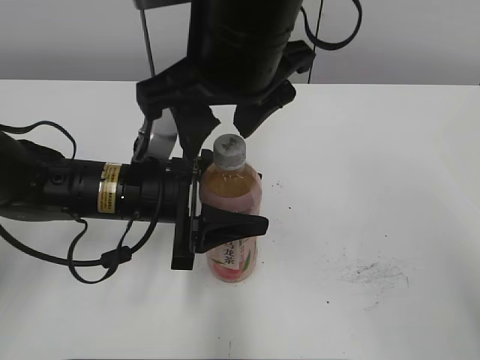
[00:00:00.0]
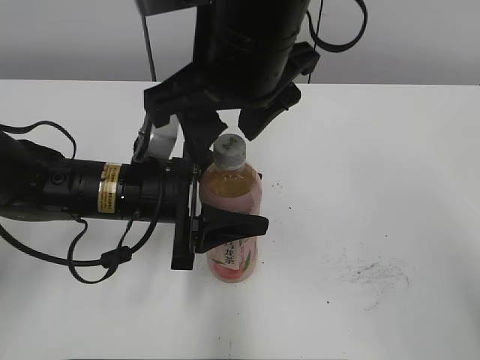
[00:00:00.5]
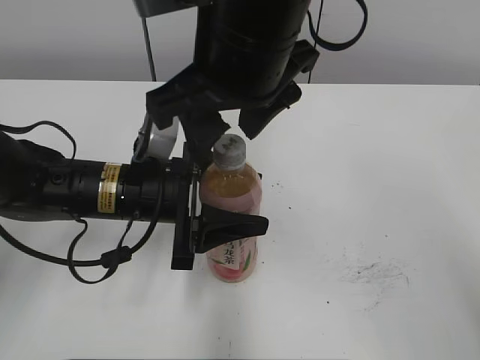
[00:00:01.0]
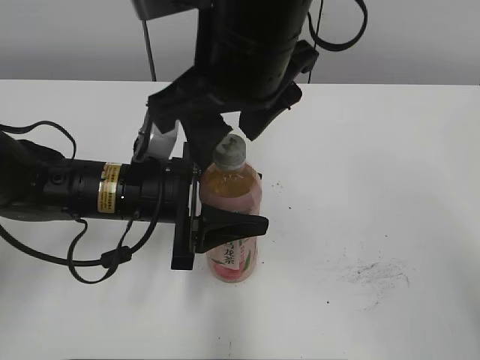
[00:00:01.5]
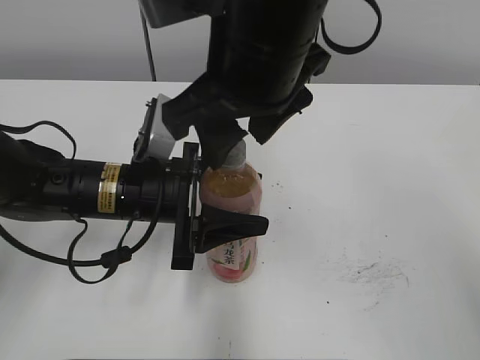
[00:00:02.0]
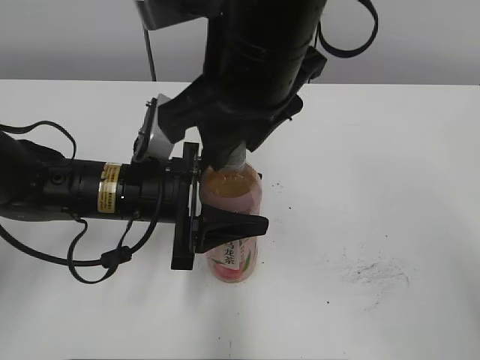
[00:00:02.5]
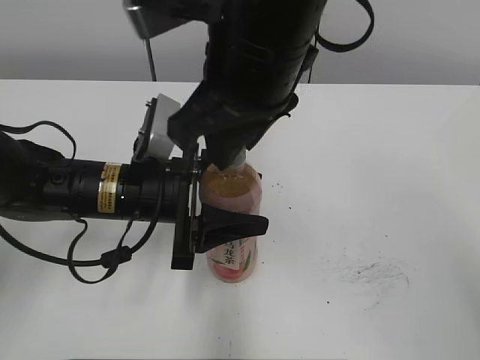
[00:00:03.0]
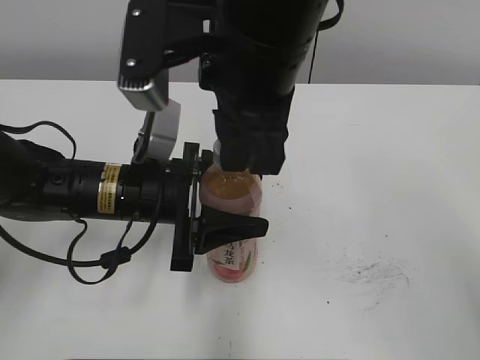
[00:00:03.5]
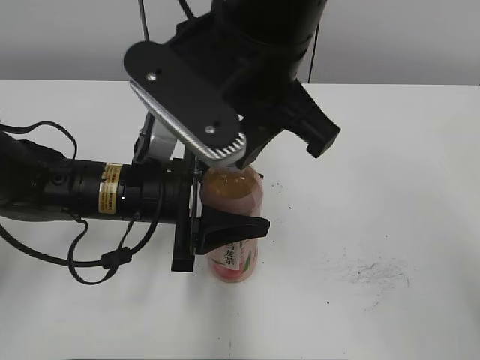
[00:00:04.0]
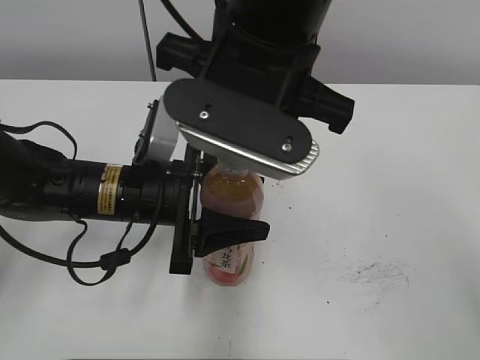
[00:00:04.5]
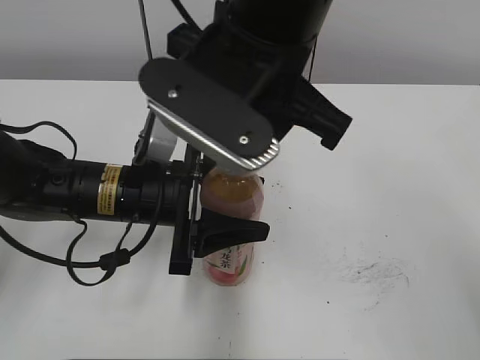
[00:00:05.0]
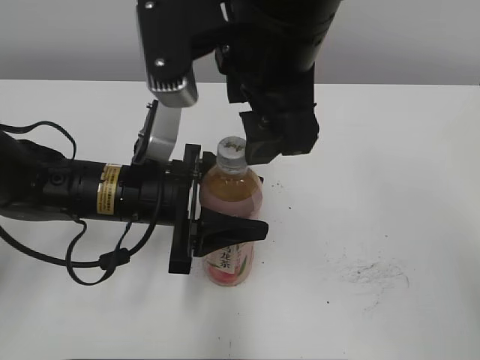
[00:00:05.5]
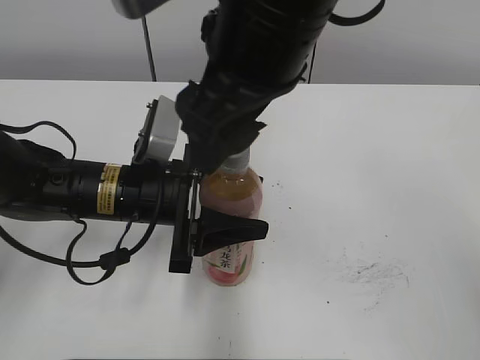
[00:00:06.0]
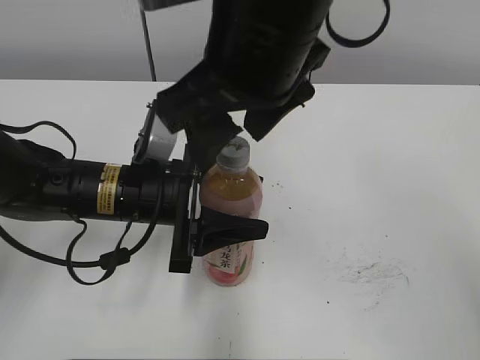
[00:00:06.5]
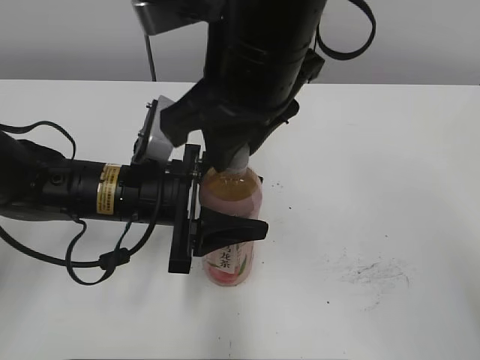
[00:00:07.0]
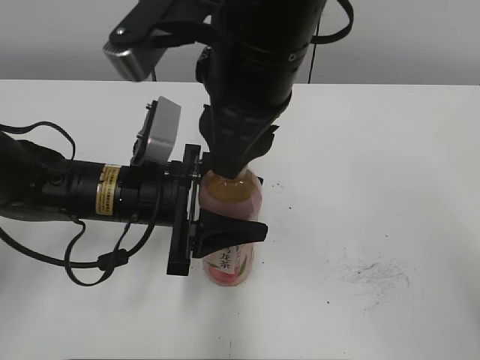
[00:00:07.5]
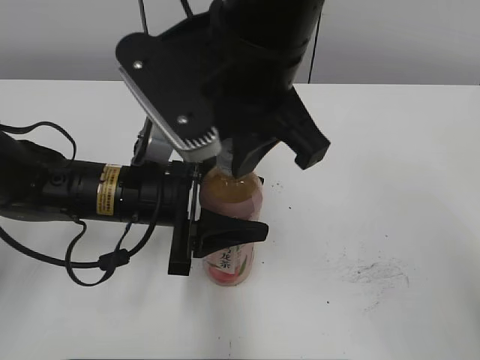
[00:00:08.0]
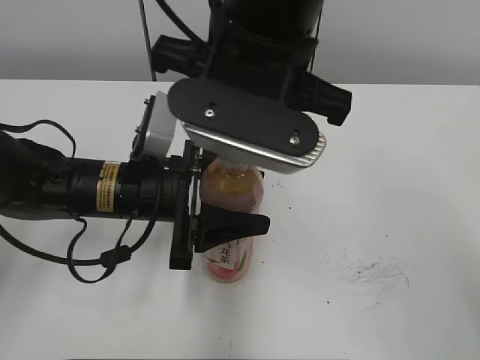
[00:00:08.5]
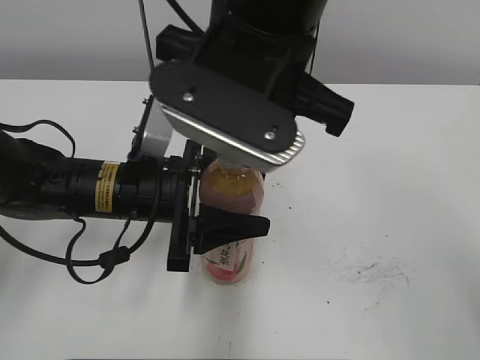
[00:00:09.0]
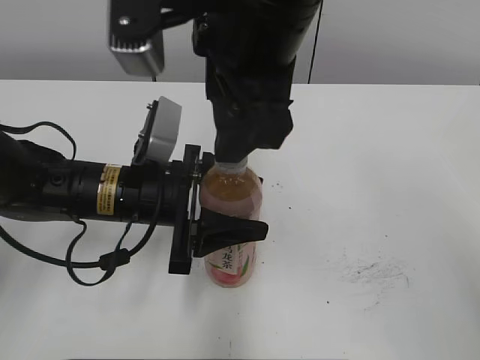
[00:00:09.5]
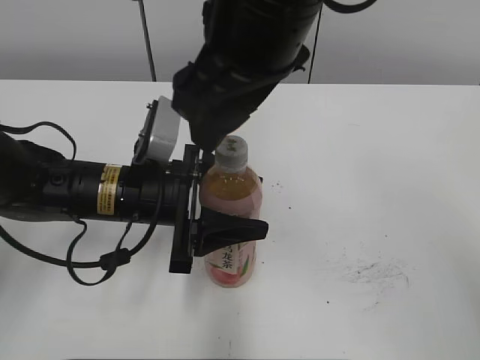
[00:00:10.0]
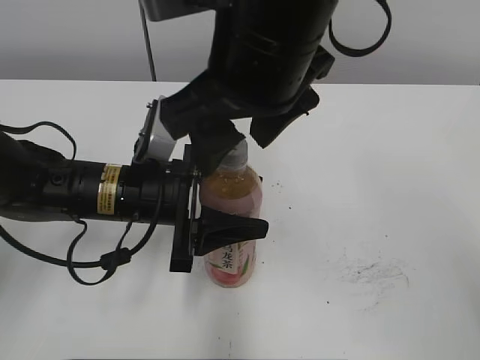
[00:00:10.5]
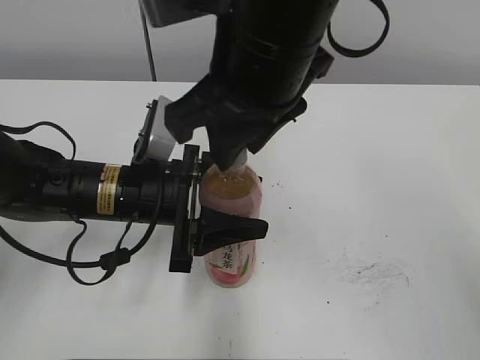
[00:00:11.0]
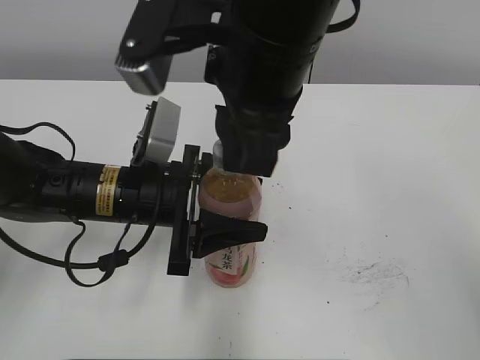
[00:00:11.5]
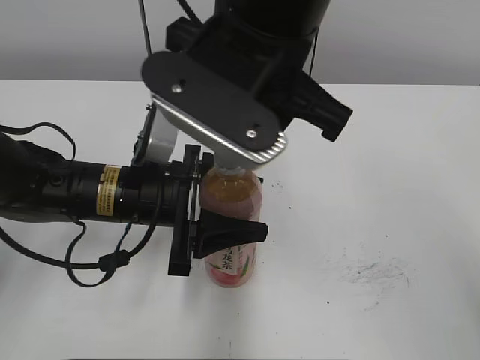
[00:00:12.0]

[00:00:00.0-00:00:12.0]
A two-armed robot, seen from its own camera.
00:00:00.0 to 00:00:02.0: There are only small adjustments of the grippers.
00:00:02.0 to 00:00:04.0: The right gripper closes up.
00:00:04.0 to 00:00:06.0: The right gripper opens.
00:00:06.0 to 00:00:08.0: The right gripper closes up.
00:00:08.0 to 00:00:10.0: The right gripper opens up.
00:00:10.0 to 00:00:12.0: The right gripper closes its fingers.

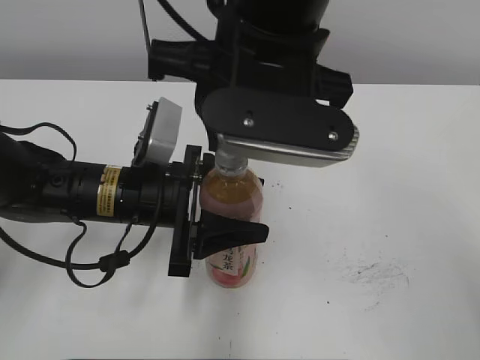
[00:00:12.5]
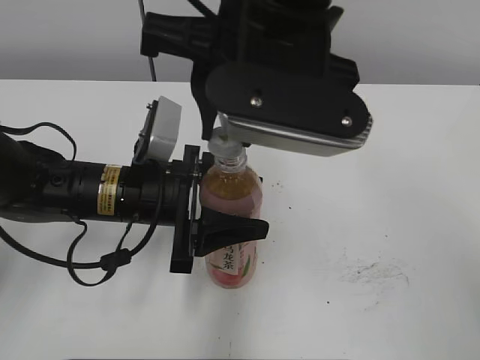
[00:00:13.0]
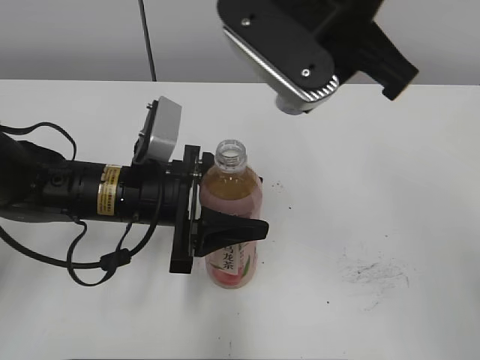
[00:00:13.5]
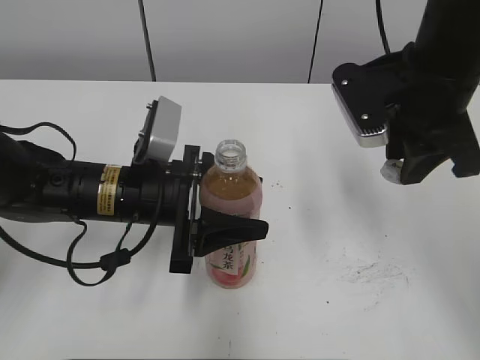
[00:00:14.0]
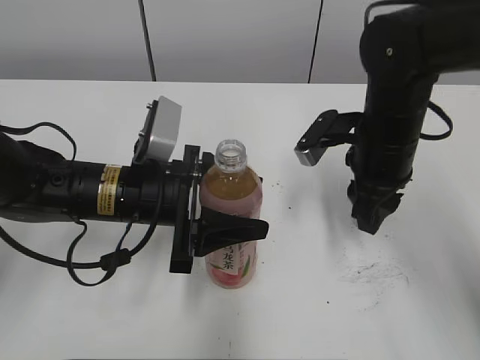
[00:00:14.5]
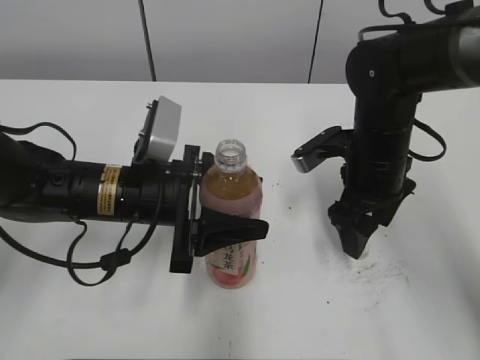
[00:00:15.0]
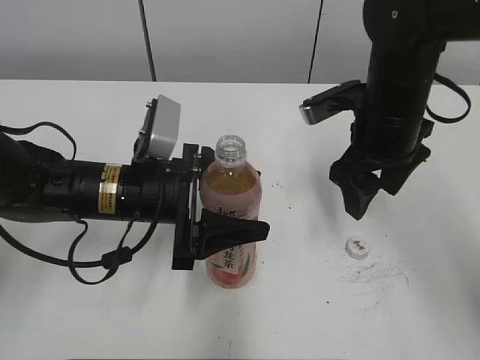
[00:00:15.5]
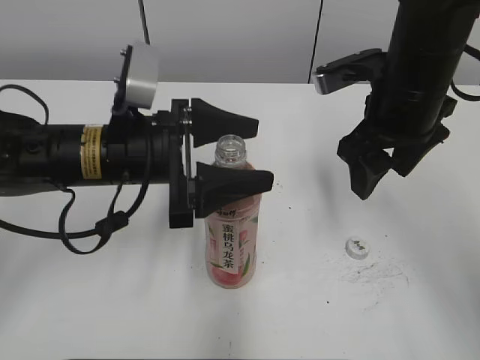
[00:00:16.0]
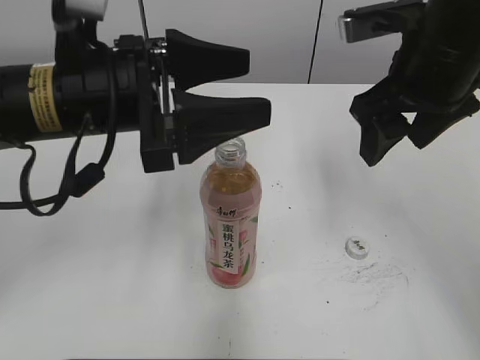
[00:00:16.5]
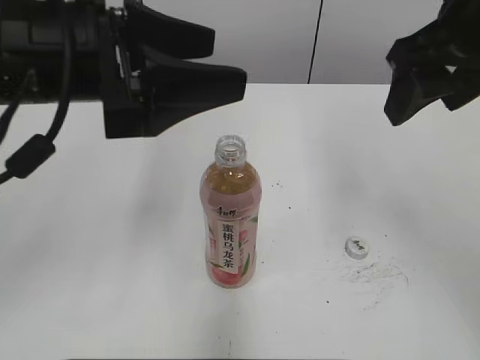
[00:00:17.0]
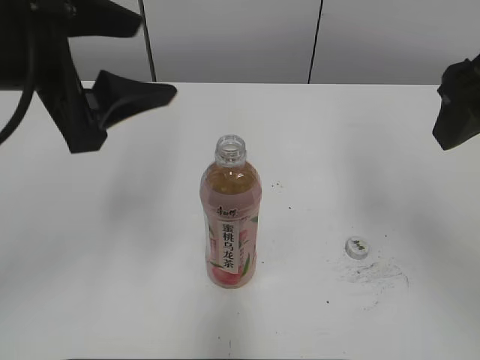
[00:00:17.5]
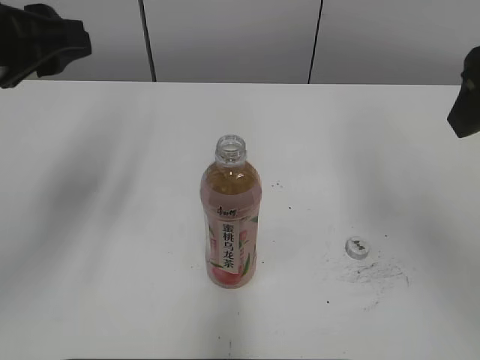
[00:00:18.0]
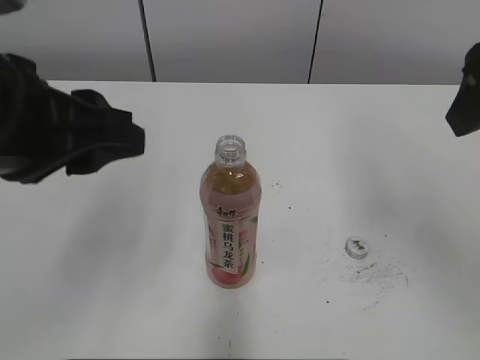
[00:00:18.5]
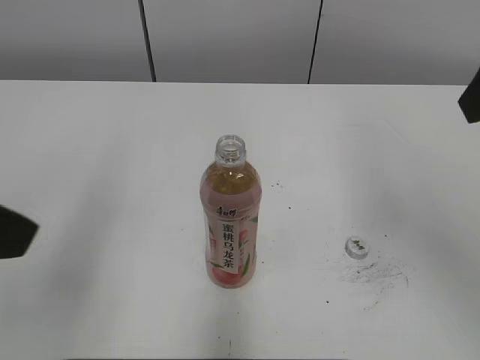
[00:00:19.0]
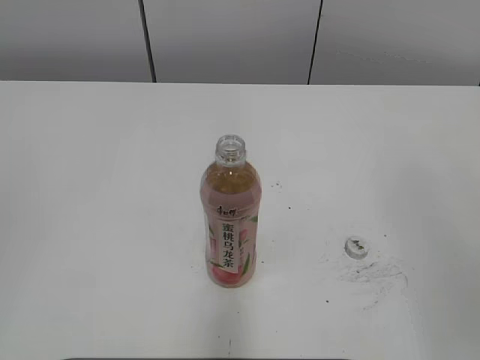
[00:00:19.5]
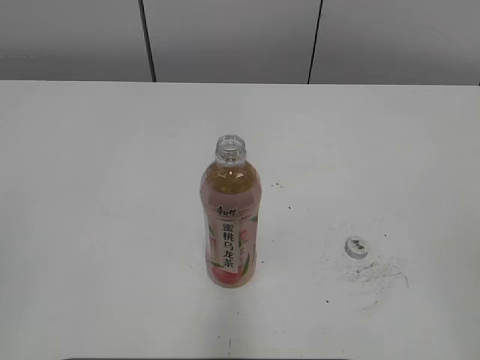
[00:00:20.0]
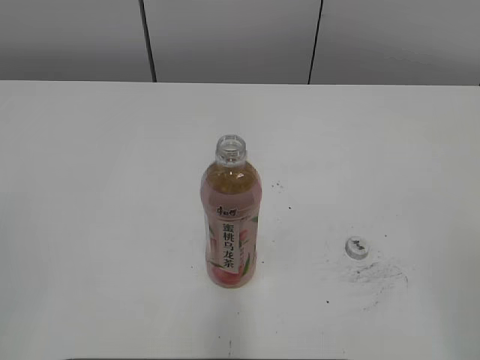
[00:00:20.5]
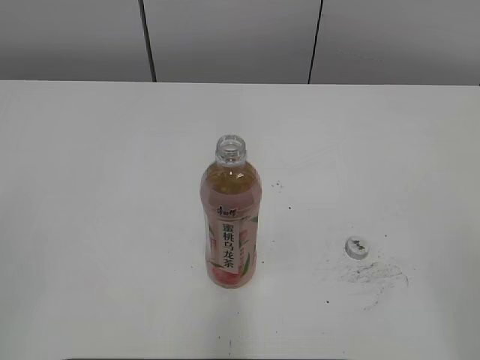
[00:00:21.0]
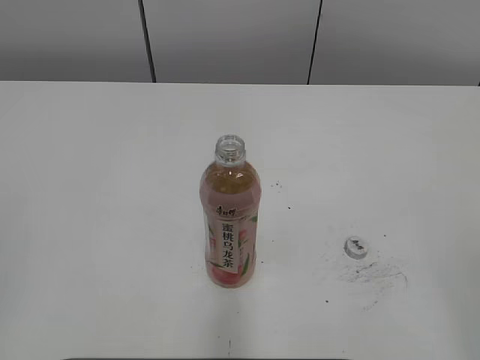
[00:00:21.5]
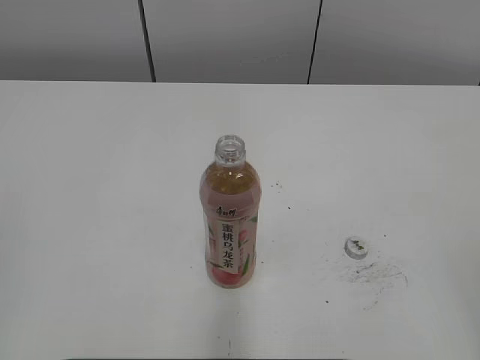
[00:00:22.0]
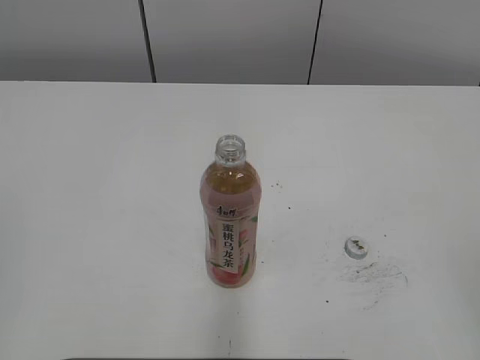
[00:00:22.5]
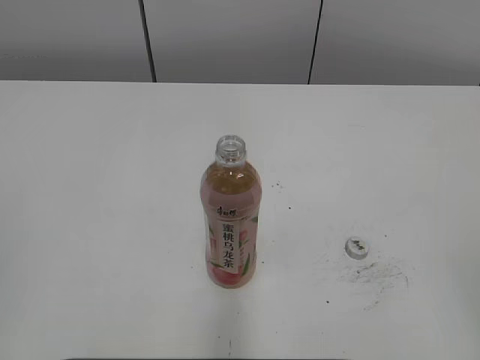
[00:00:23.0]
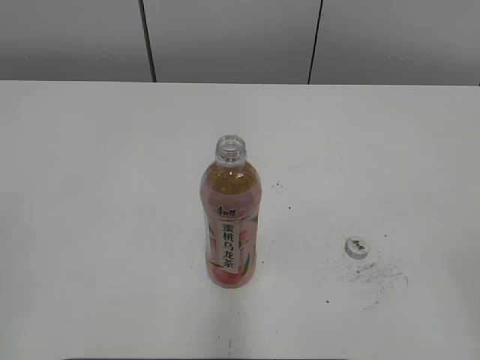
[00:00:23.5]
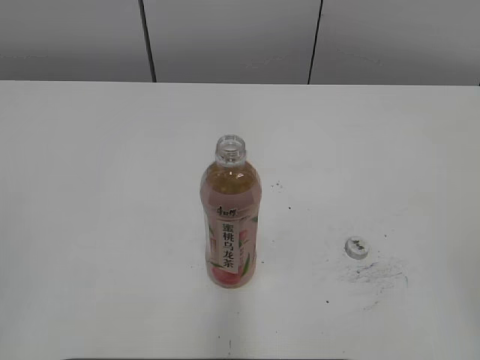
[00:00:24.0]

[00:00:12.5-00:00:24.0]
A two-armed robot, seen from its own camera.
Step, 00:00:13.5 to 00:00:15.0: Place the bottle cap on the right.
00:00:12.5 to 00:00:14.5: The right gripper goes about 20 cm downward, to the right and forward.
00:00:14.5 to 00:00:16.5: Both grippers move upward, approximately 10 cm. The right gripper opens its fingers.
00:00:16.5 to 00:00:18.5: The left gripper moves backward, approximately 10 cm, and closes its fingers. Meanwhile the right gripper moves backward and upward, about 10 cm.
00:00:18.5 to 00:00:20.0: The left gripper shifts about 25 cm backward and to the left; the right gripper moves backward, about 25 cm.
00:00:22.0 to 00:00:24.0: Both grippers stay put.
